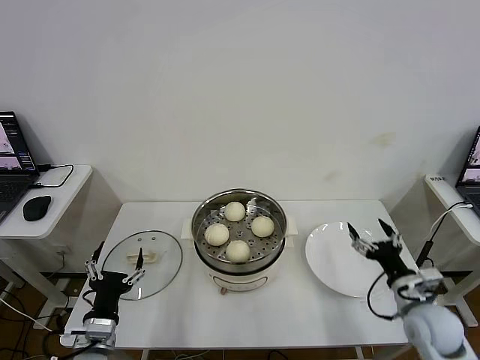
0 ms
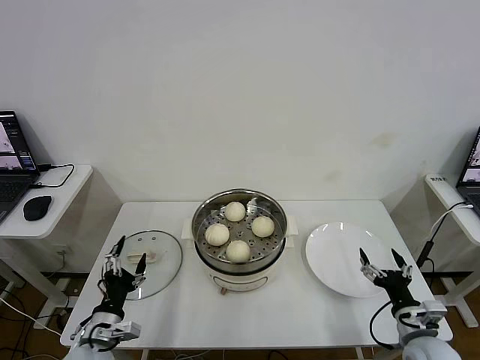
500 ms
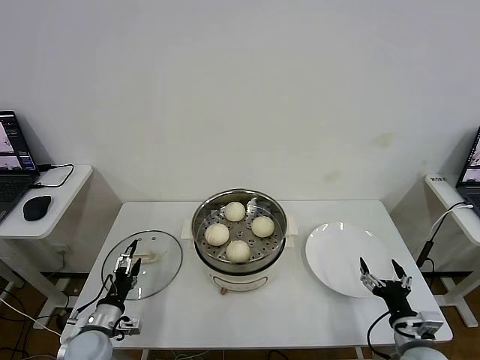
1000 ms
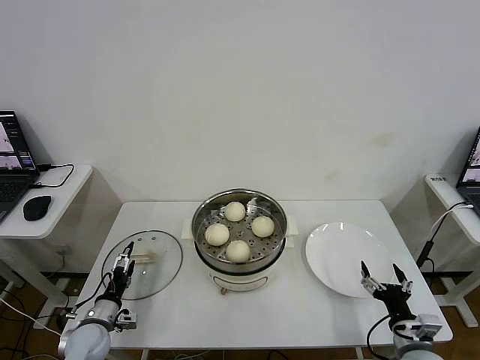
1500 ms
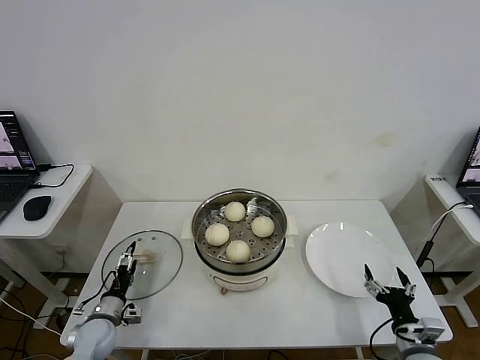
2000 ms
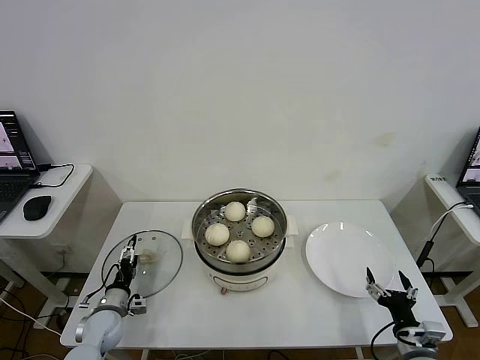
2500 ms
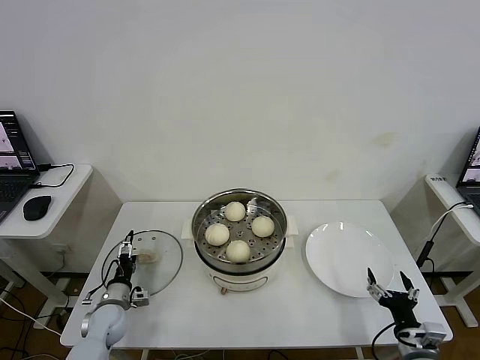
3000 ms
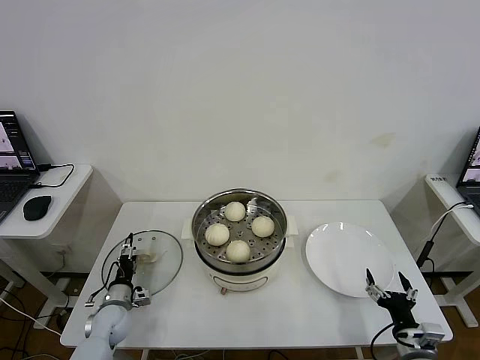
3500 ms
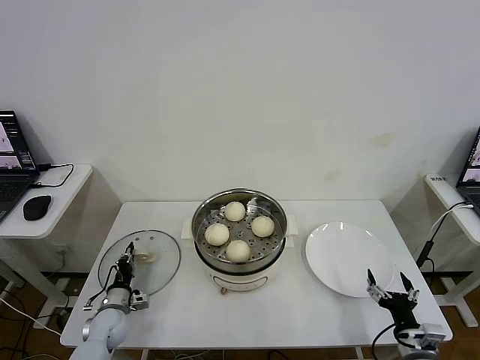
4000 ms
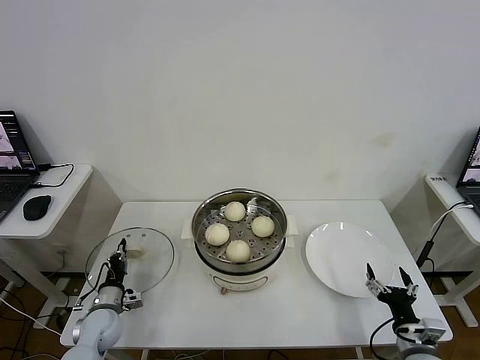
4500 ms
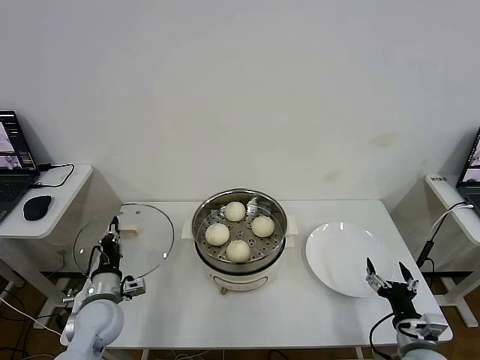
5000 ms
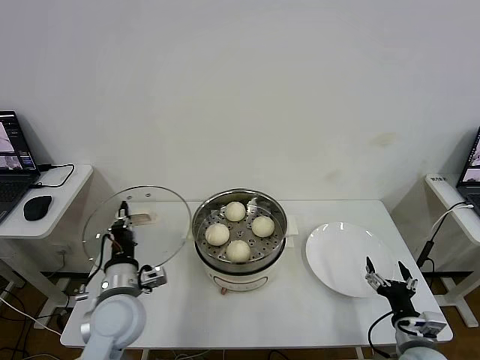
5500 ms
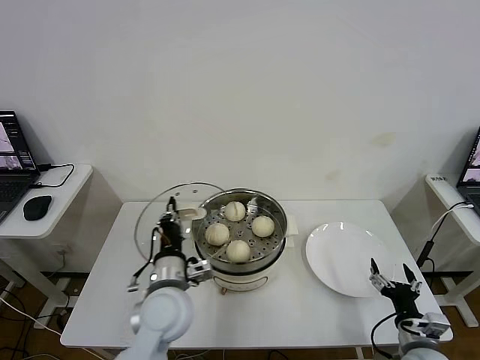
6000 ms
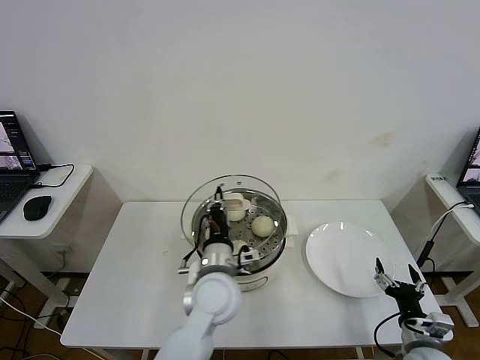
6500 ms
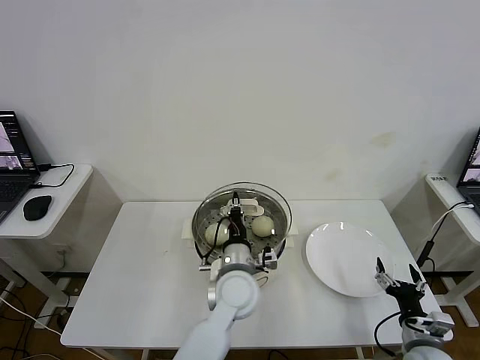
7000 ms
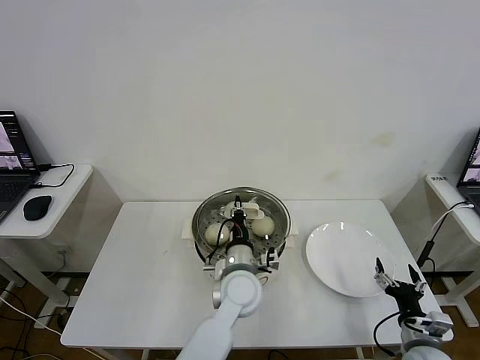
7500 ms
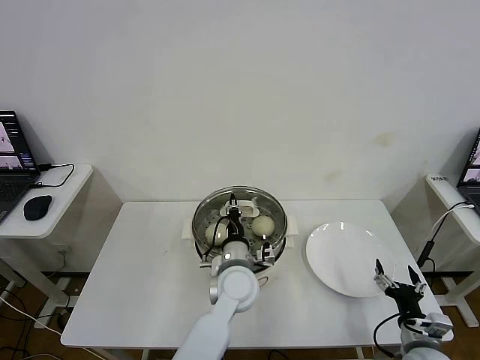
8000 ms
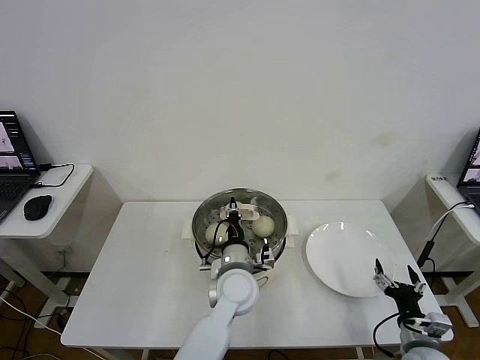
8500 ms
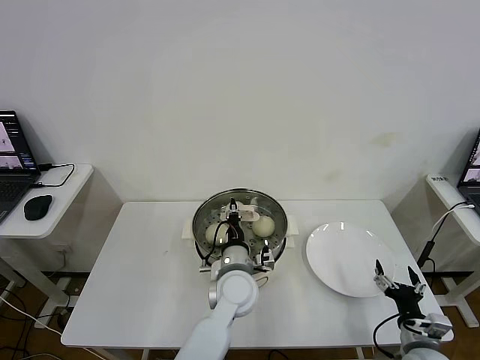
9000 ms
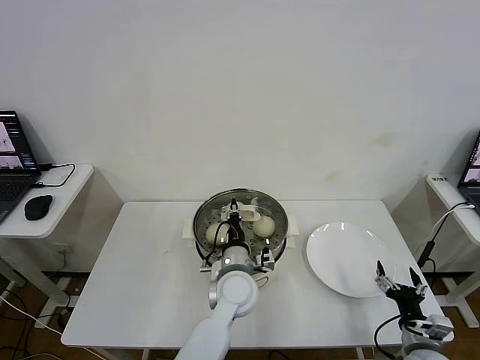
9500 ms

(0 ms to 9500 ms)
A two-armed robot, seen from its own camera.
Step, 0 ms - 4000 ms: Grasp the pot lid with left gripper.
0 ms - 2000 ms: The left gripper is displaced downward, forward and to the left by approximately 20 cm. Meanwhile the right gripper moves backward and downward, about 10 cm.
2000 ms - 4000 ms: The left gripper closes its fingers.
4000 ms - 5500 ms: The left gripper shifts about 25 cm upward and to the right.
5500 ms - 7500 ms: The left gripper goes about 25 cm to the right.
7500 ms - 9500 ms: Both grippers stay put.

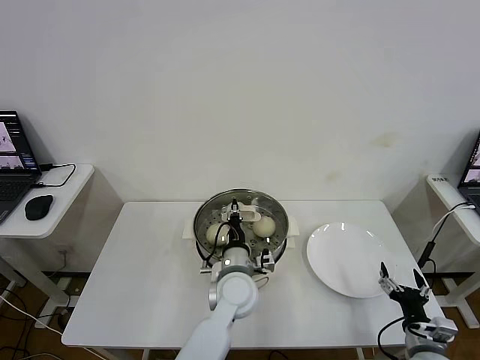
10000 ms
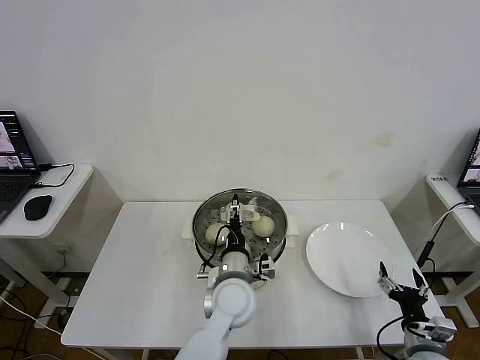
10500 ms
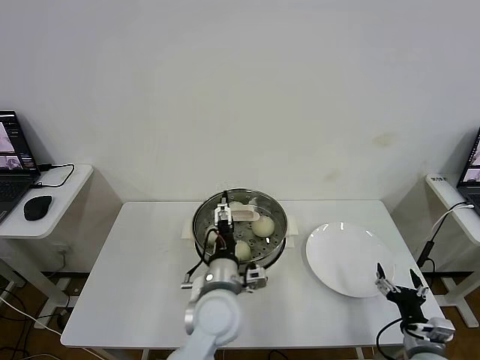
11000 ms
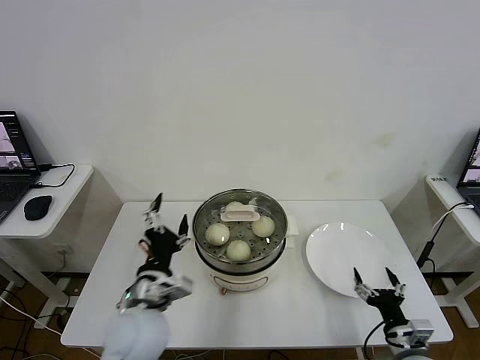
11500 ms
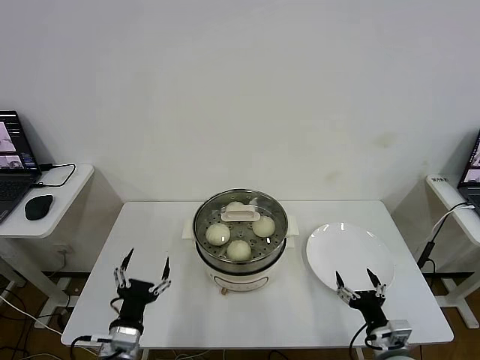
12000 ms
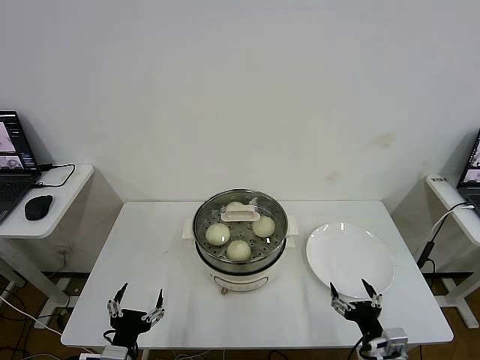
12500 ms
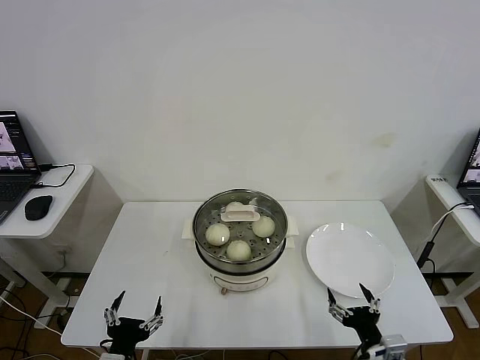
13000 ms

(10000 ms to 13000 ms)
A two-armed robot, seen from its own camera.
10000 ms - 11500 ms: The left gripper is displaced to the left, backward and upward by about 20 cm, and opens up.
11500 ms - 13000 ms: The left gripper travels backward, downward and to the left by about 20 cm; the right gripper moves to the left, some 5 cm.

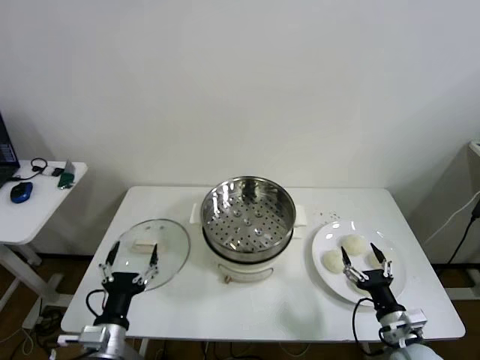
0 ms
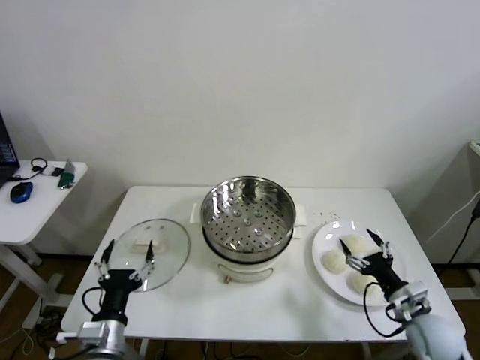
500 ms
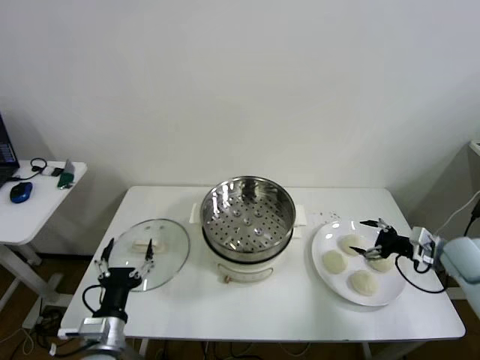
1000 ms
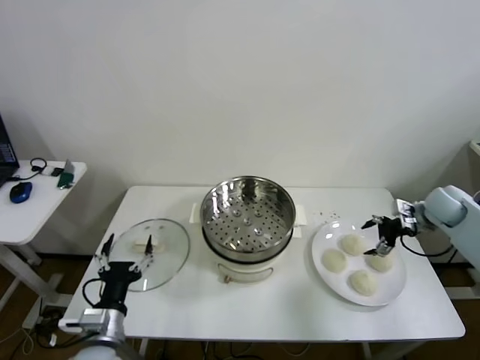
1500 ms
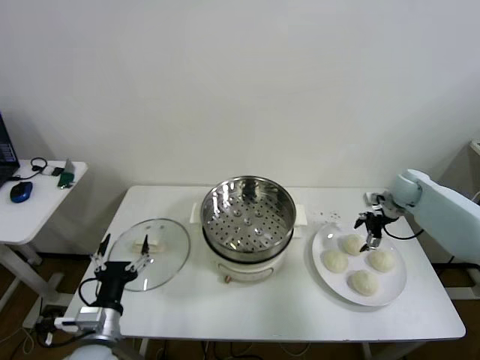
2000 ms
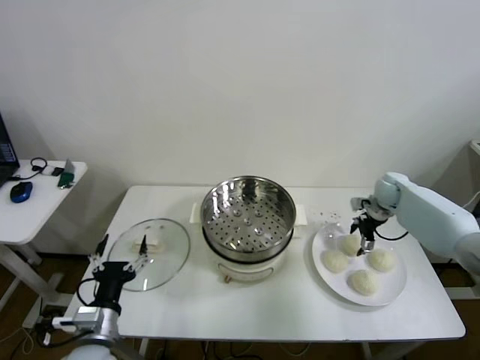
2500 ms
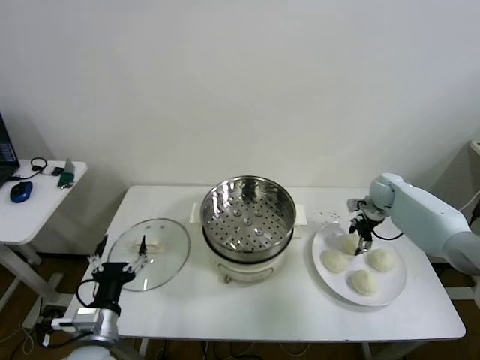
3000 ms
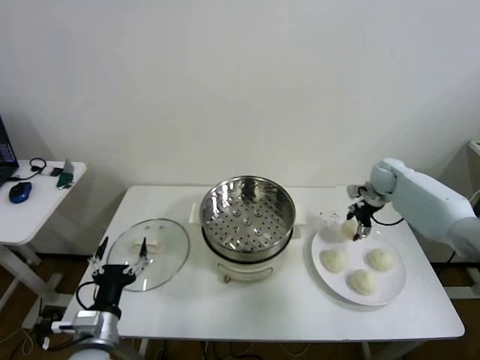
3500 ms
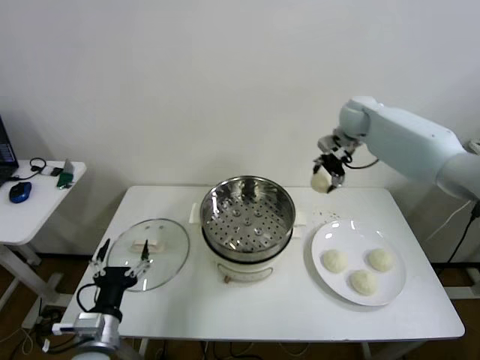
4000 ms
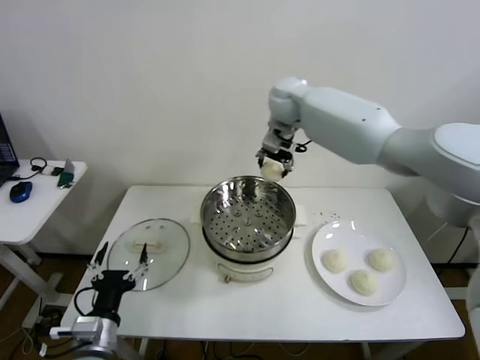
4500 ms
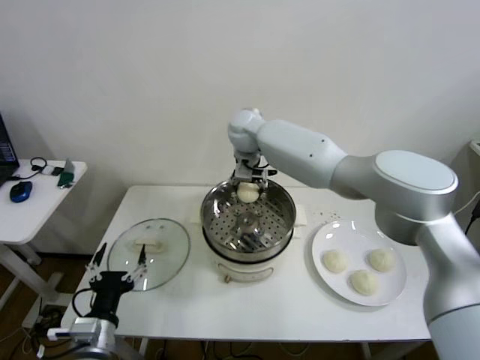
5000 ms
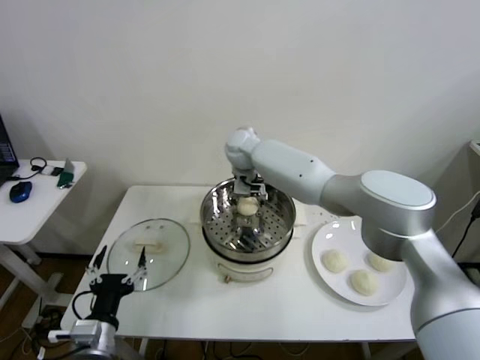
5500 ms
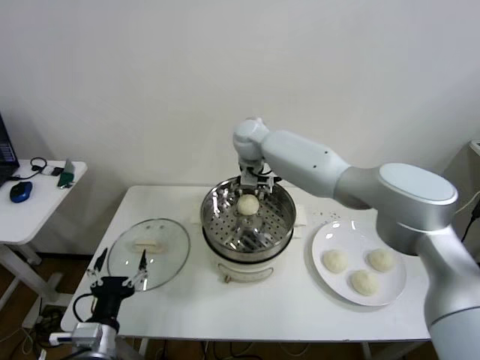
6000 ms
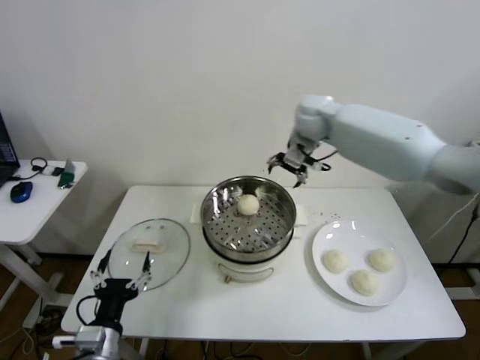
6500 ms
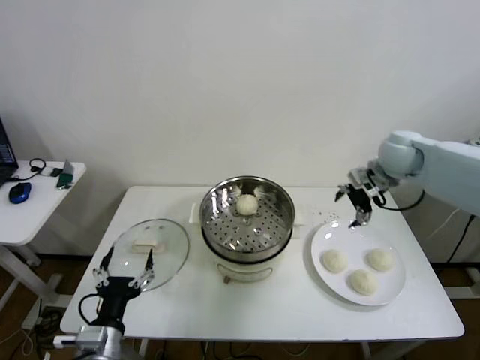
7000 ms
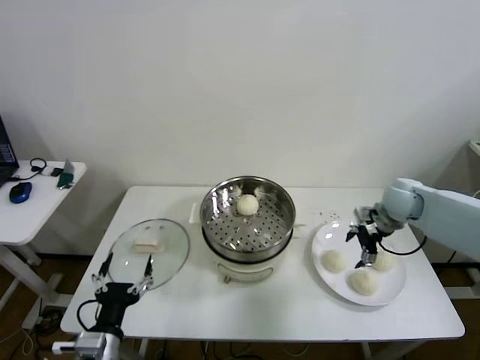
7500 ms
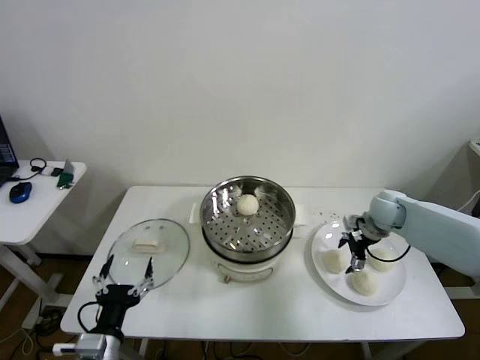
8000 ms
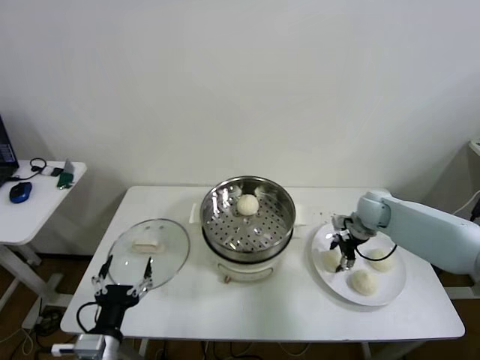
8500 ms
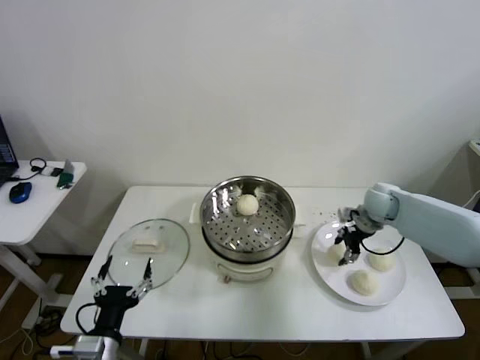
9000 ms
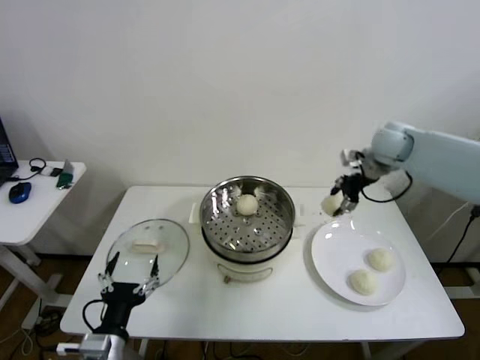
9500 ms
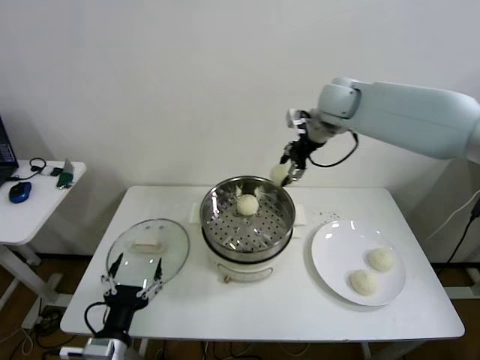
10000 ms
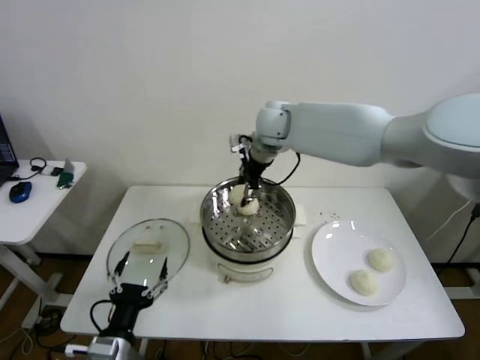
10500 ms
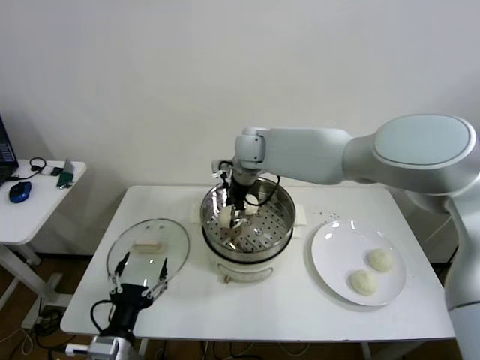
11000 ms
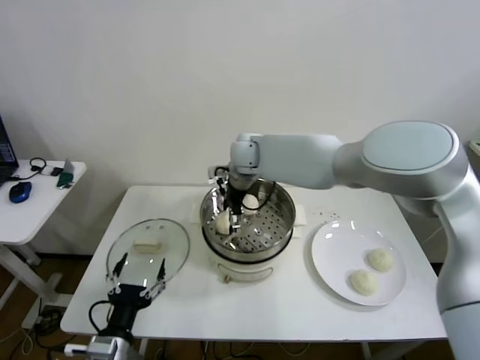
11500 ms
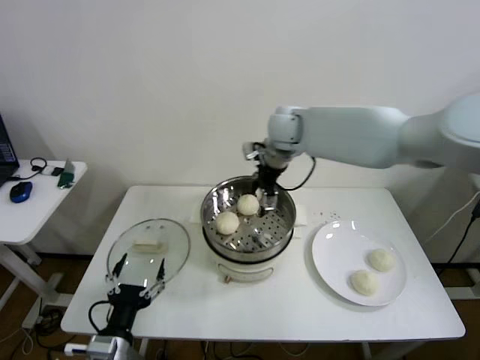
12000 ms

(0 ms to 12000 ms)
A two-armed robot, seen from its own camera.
Step, 0 ms - 2500 ms: Grasp the baozi in the plate with right gripper.
Step, 3500 ms - 6000 ms: Place the baozi on the steamer with right gripper.
Step, 6500 ms - 8000 ms: Grasp the baozi in the plate with right gripper.
Step, 9000 ms - 11000 ms: Place the baozi on the steamer with right gripper.
2000 ms - 4000 ms: The right gripper goes approximately 30 cm upward and to the left, and closes.
4000 ms - 6000 ms: The right gripper goes some 20 cm to the left, and opens up.
6000 ms - 8000 ms: The right gripper moves to the right and downward, about 35 cm.
8000 ms - 10000 ms: The right gripper moves upward and to the left, approximately 30 cm, and closes its fingers.
10000 ms - 12000 ms: The right gripper shifts about 5 cm to the left, and opens its fingers.

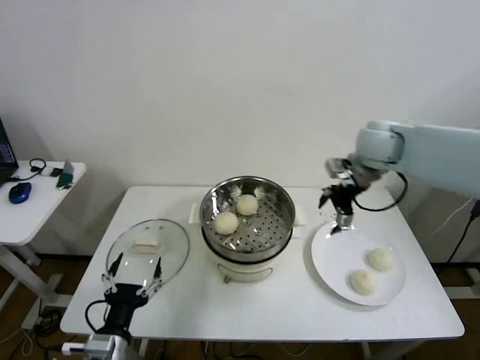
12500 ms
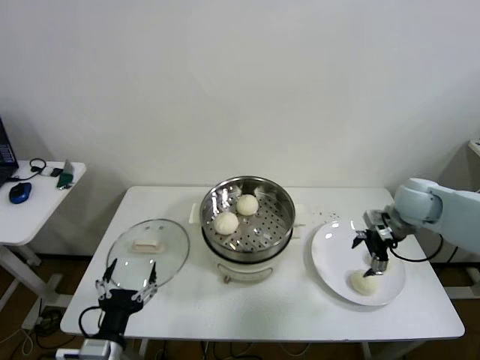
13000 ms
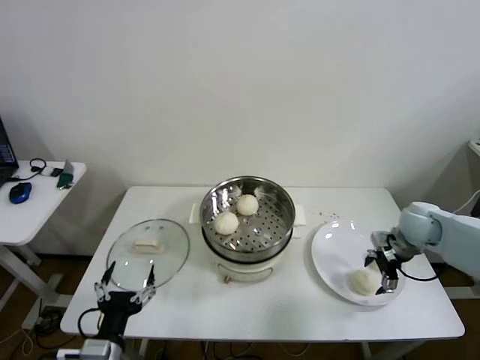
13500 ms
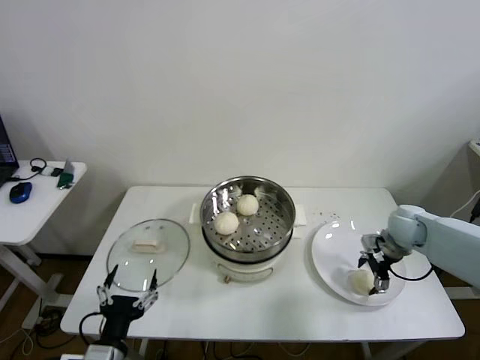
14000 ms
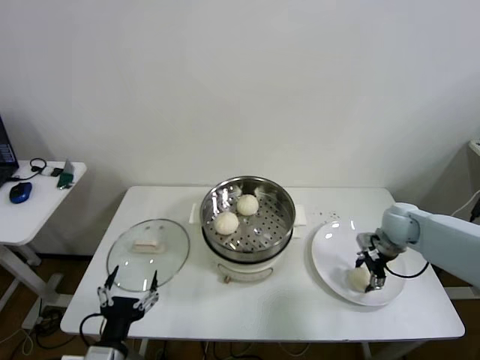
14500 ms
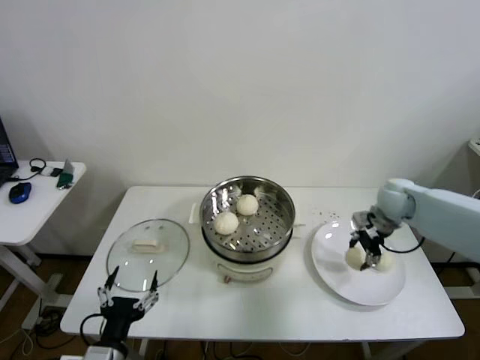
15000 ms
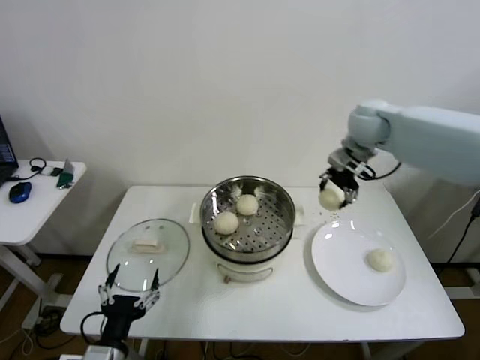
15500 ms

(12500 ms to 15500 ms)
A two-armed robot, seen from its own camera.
Step, 12500 ms - 14000 ms: Grasp the baozi in the plate with right gripper.
12500 ms - 14000 ms: The right gripper moves downward and to the right, some 20 cm.
14000 ms - 15500 ms: The right gripper shifts about 30 cm upward, to the left and forward, and closes up.
